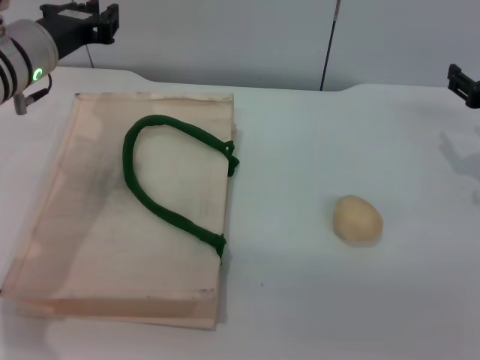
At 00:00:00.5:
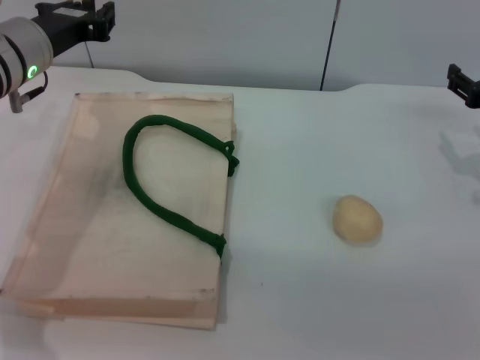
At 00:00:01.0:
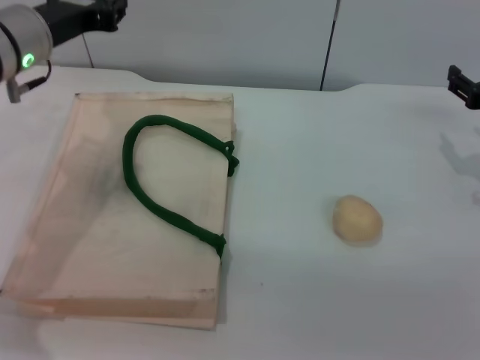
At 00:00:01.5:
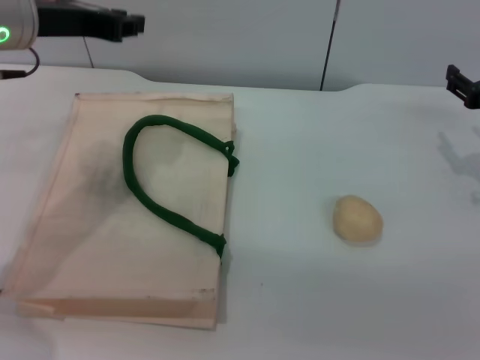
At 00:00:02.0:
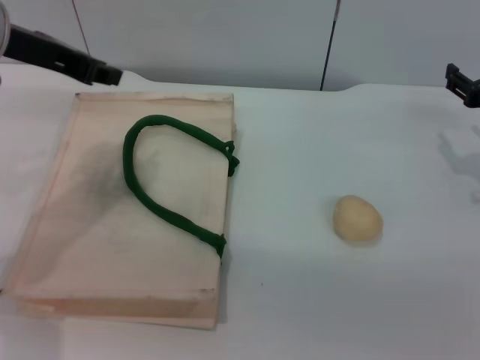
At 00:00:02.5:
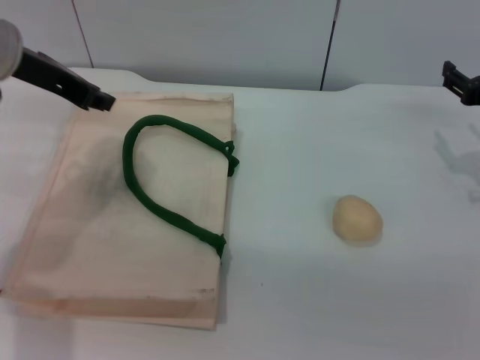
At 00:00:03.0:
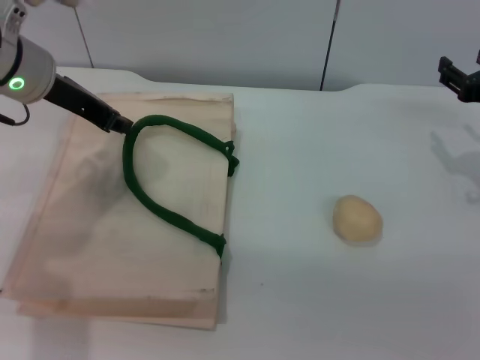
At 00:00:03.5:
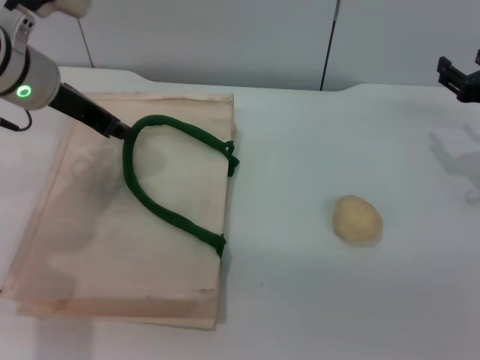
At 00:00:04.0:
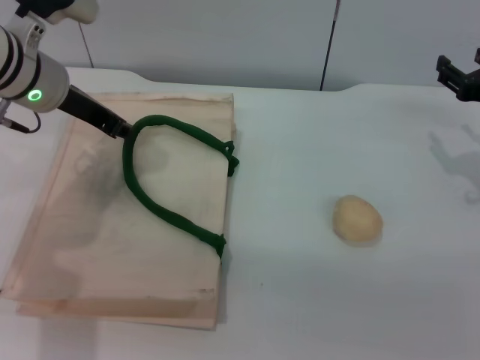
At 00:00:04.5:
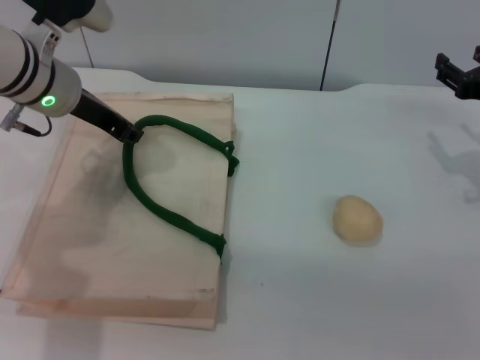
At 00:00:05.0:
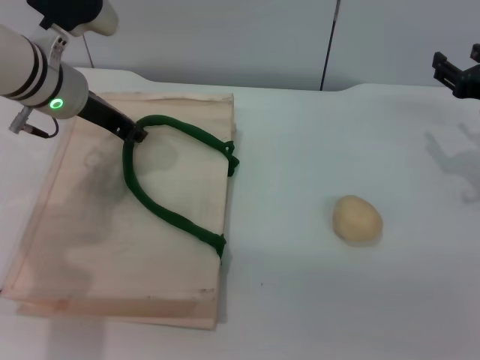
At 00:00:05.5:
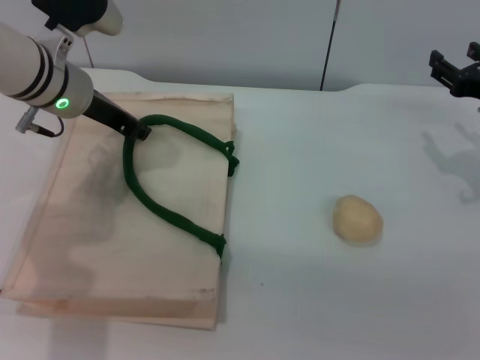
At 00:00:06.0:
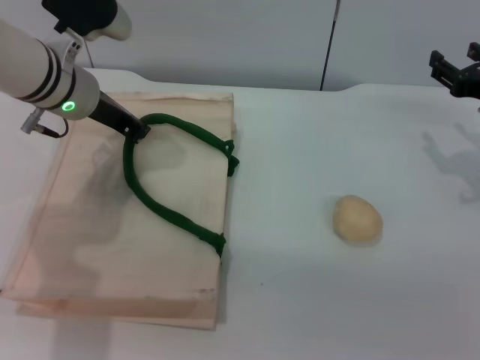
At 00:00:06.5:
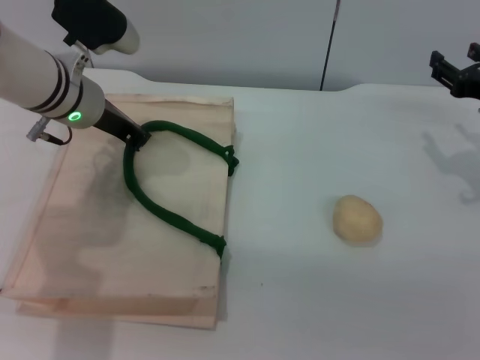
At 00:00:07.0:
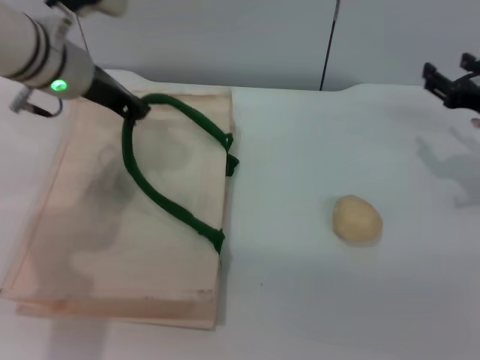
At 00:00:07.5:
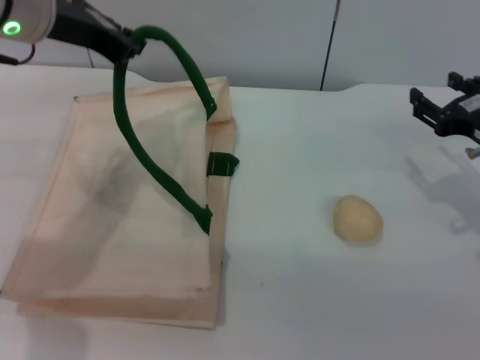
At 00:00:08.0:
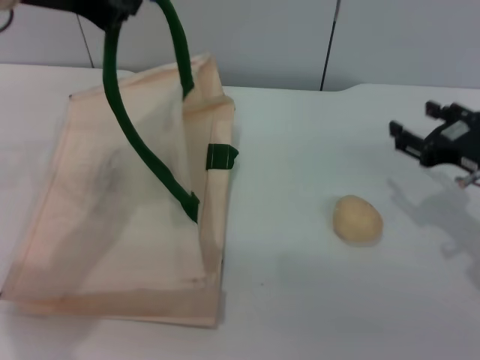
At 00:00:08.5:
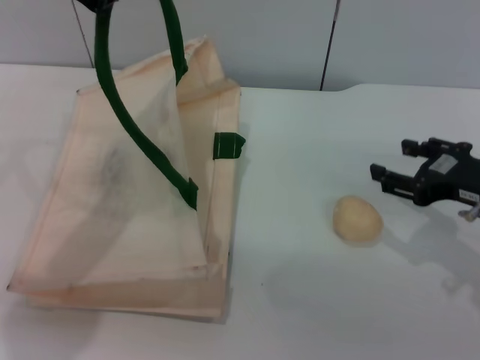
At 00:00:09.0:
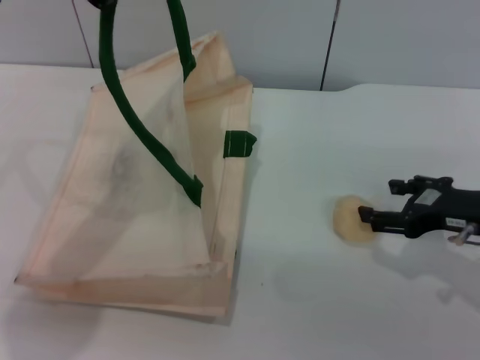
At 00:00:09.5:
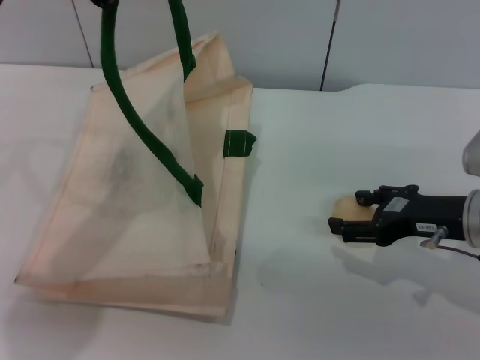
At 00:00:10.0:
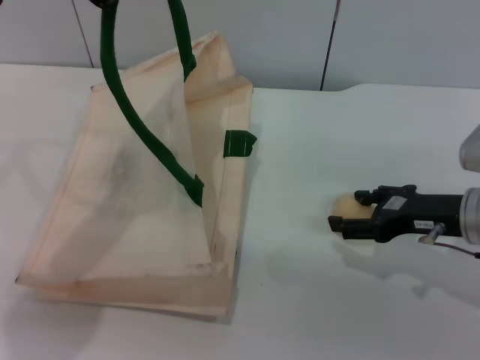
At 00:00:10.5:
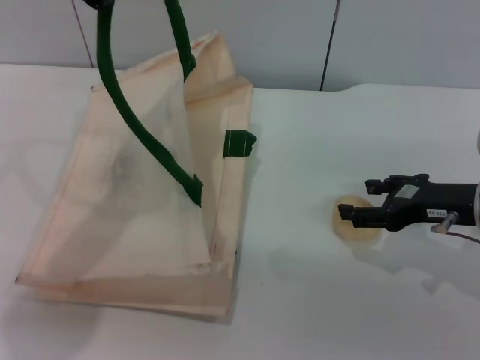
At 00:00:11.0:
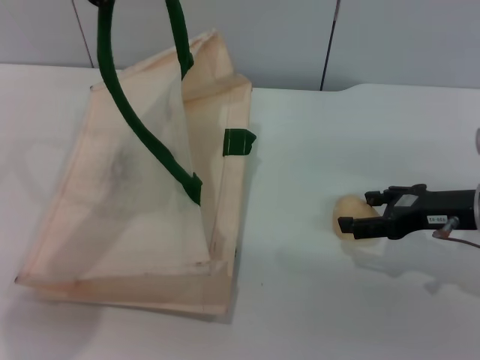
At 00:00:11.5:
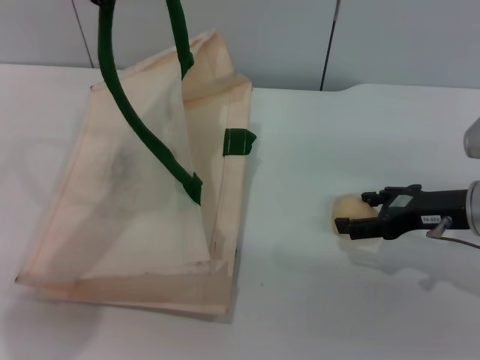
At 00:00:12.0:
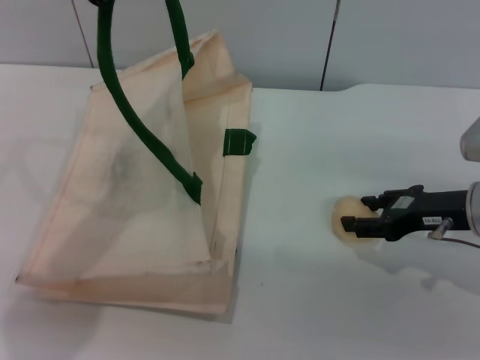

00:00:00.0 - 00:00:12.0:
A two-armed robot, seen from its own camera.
Task of the whole recording: pick up the egg yolk pastry from the table and place it in the white handbag.
Step, 00:00:00.0 - 00:00:07.0: Lift the woven bag with the left gripper to open it.
00:00:00.0 - 00:00:02.0: The left gripper heads upward, covering about 10 cm.
00:00:02.0 - 00:00:04.0: The left gripper moves downward, roughly 10 cm.
00:00:04.0 - 00:00:06.0: There are only small adjustments of the grippers.
00:00:06.0 - 00:00:08.0: The right gripper moves backward, some 5 cm; the left gripper moves upward and backward, approximately 15 cm.
00:00:10.0 - 00:00:12.0: The grippers move only a little.

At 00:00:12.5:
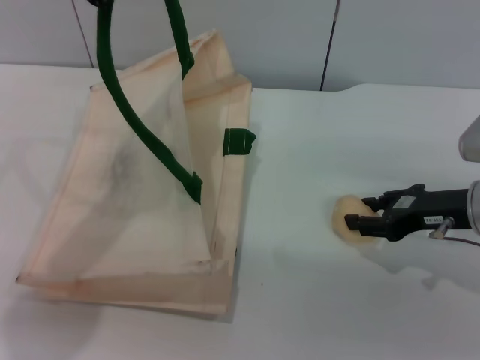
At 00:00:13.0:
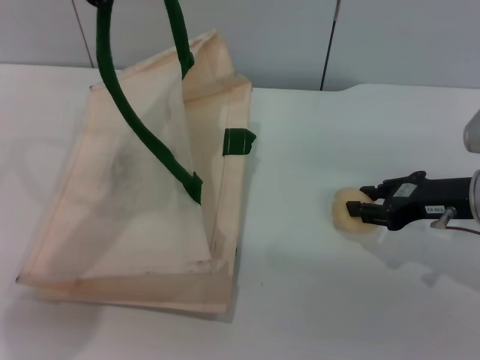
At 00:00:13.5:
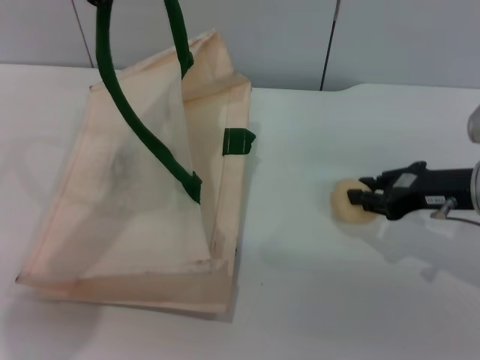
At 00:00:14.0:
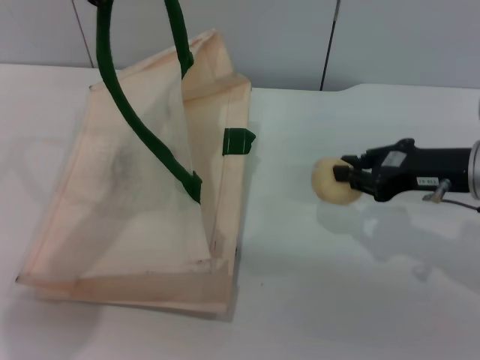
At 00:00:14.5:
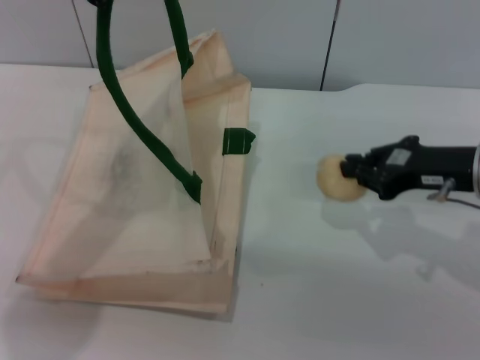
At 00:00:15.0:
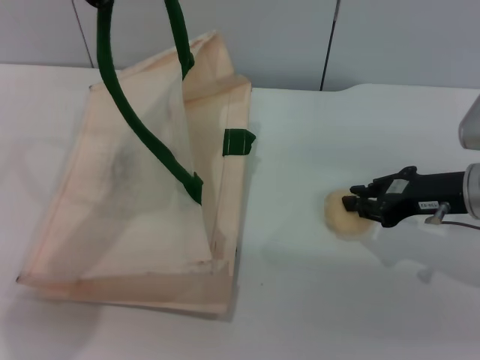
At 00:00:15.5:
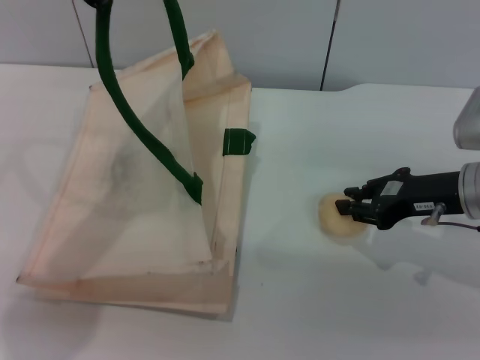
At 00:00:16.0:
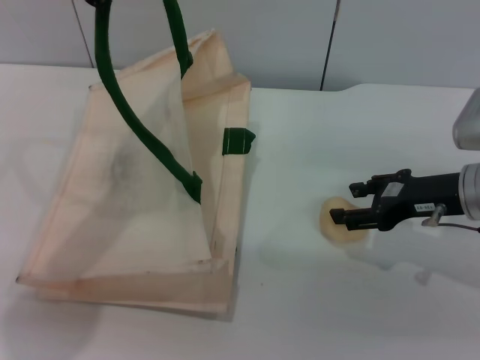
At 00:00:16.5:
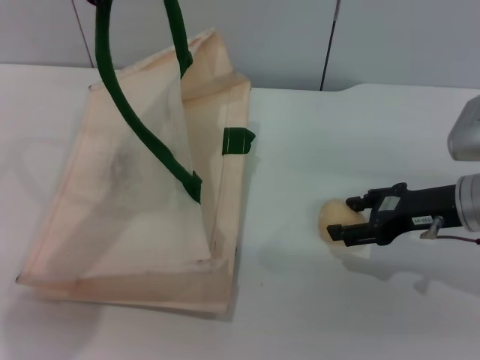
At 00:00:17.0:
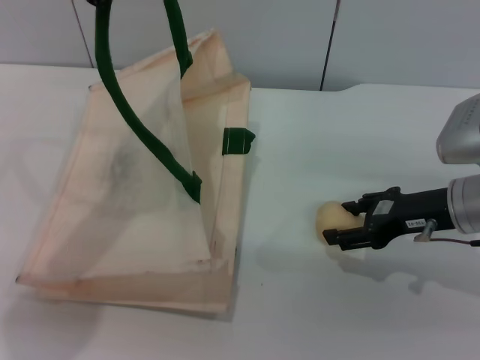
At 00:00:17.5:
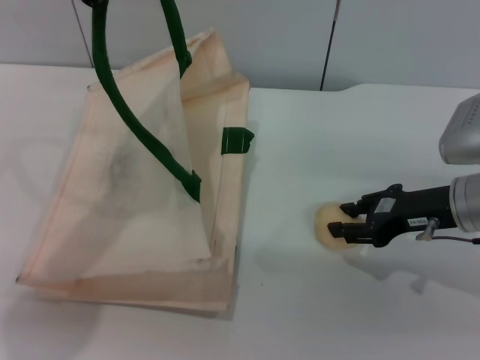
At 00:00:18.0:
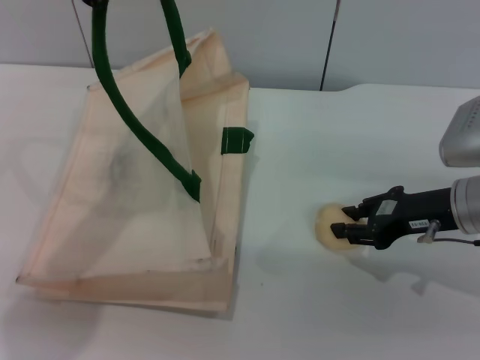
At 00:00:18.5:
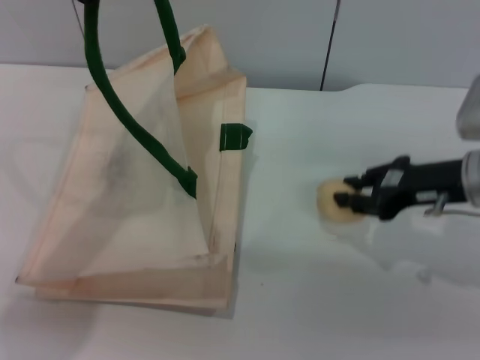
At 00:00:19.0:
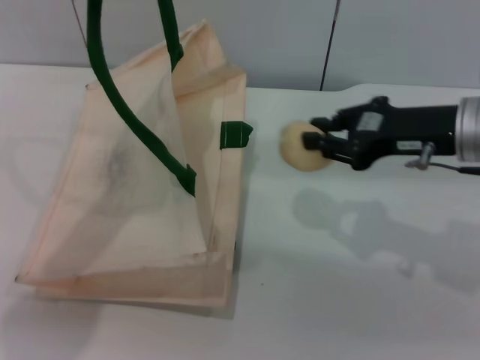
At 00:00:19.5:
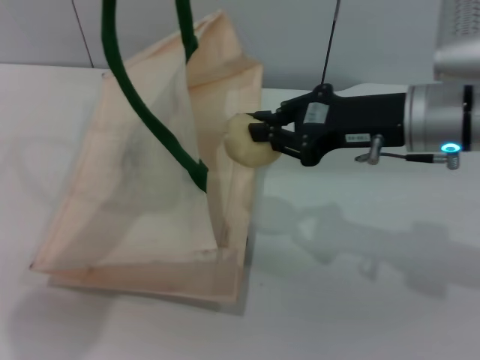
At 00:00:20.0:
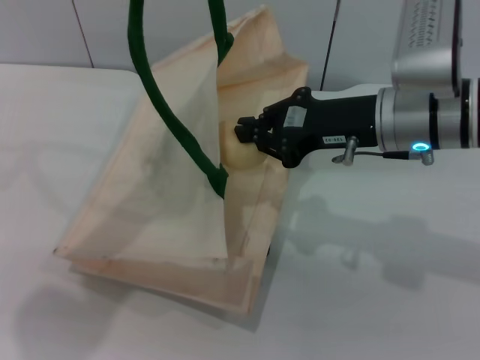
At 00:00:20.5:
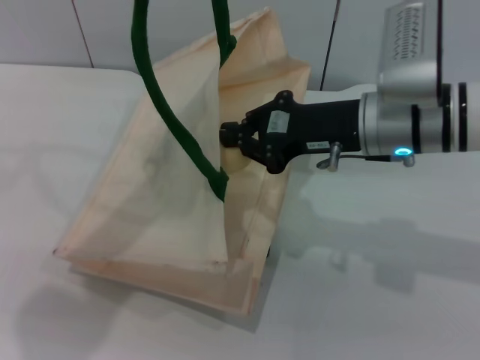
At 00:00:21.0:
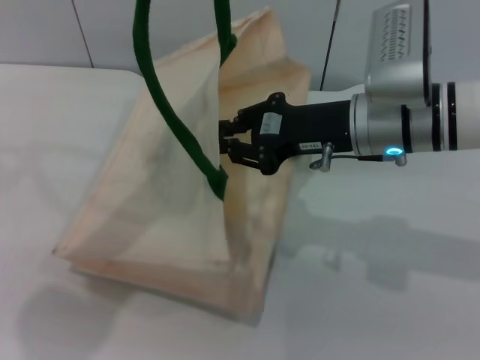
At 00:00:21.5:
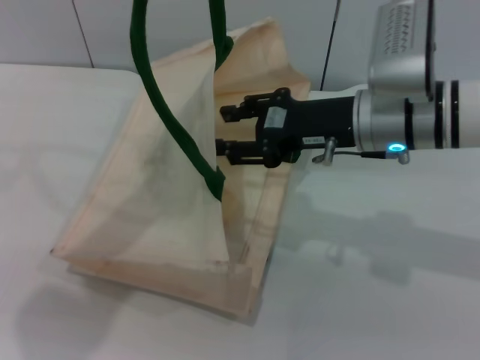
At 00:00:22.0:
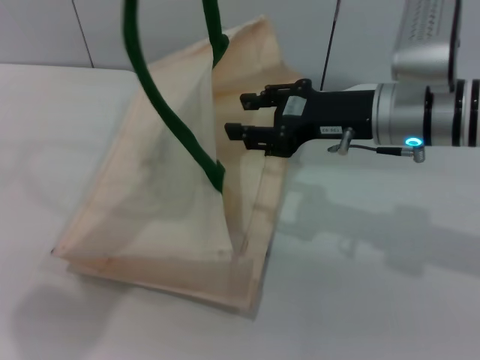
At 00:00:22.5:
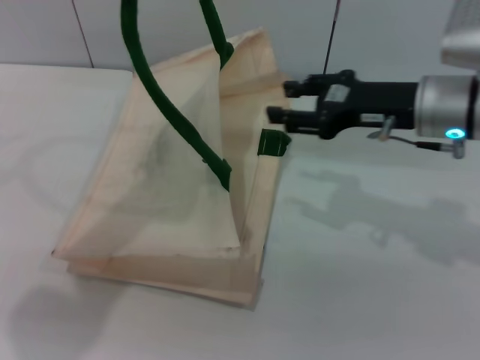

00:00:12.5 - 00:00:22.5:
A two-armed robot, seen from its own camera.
Task of the whole recording: pick up the egg yolk pastry from the table and place it in the white handbag.
Step, 00:00:12.5 - 00:00:18.5: Pick up the egg yolk pastry with the right gripper.
Step, 00:00:19.0 - 00:00:22.5: Place the egg yolk pastry into the woven bag with the right gripper.
00:00:12.5 - 00:00:14.5: The right gripper closes its fingers.
00:00:14.5 - 00:00:16.5: The right gripper opens.
00:00:16.5 - 00:00:18.5: The right gripper closes up.
00:00:18.5 - 00:00:20.5: The right gripper travels to the left by some 10 cm, and closes.
00:00:20.5 - 00:00:22.5: The right gripper moves to the right, roughly 5 cm, and opens its fingers.

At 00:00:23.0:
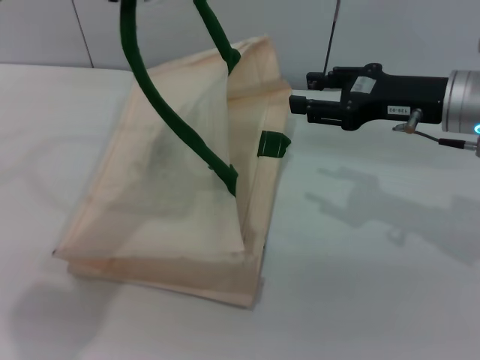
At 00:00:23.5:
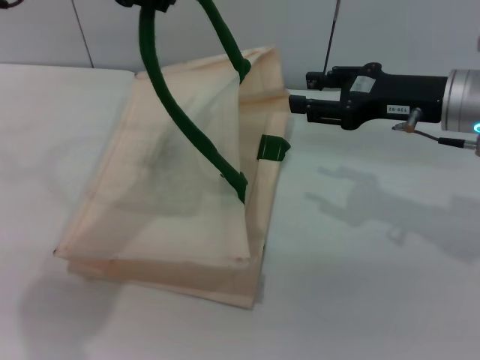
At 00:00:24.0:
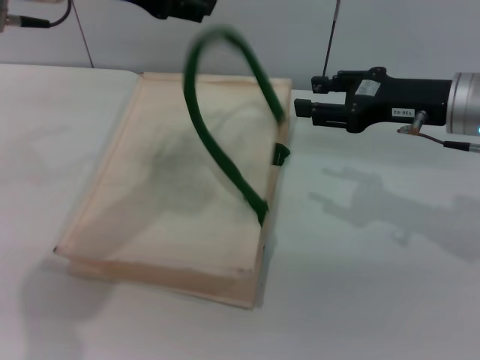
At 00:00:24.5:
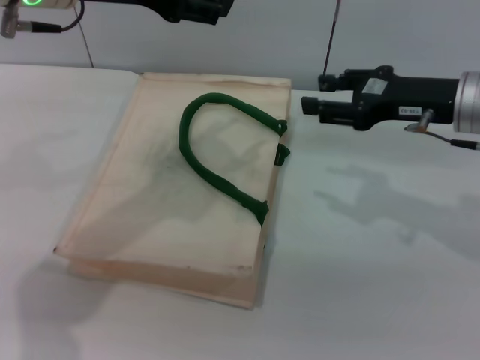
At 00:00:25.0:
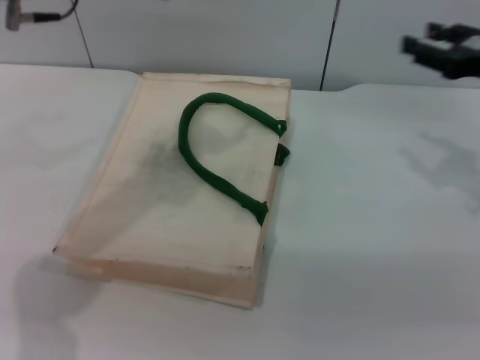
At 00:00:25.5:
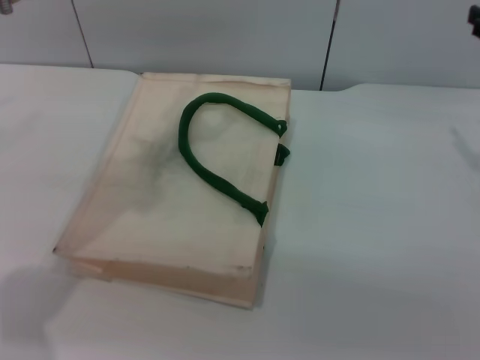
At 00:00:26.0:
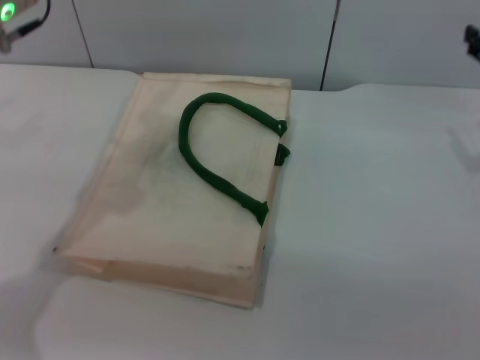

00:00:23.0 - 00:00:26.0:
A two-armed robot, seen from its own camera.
Task of the whole recording: pick up the egg yolk pastry from the table and place it in the white handbag.
Step, 00:00:23.0 - 00:00:24.0: Lower the woven bag with the left gripper to close it.
00:00:23.0 - 00:00:24.5: The left gripper opens its fingers.
00:00:24.5 - 00:00:26.0: The right gripper travels to the right by about 10 cm; the left gripper is displaced downward by roughly 5 cm.
